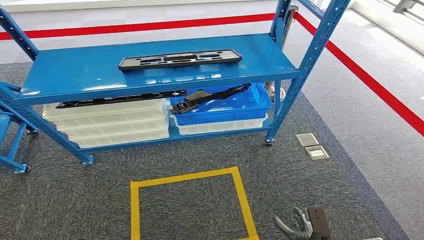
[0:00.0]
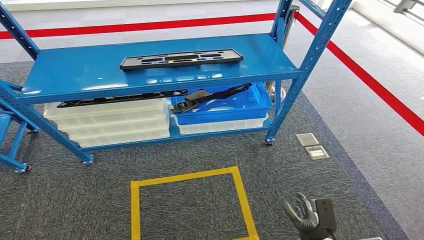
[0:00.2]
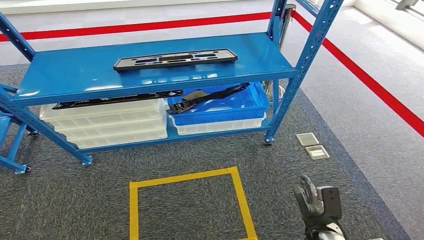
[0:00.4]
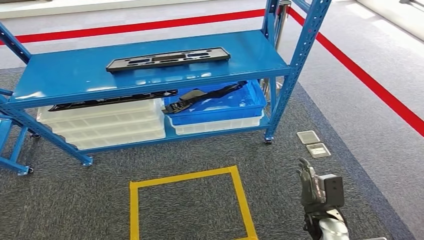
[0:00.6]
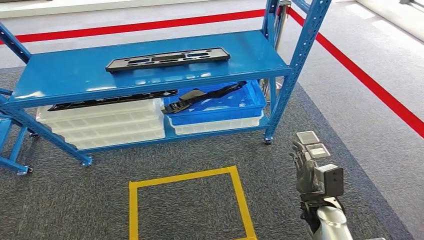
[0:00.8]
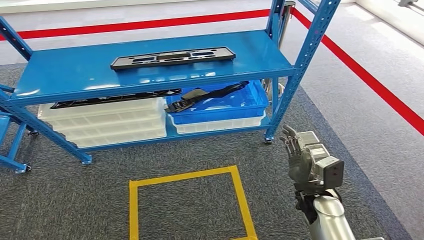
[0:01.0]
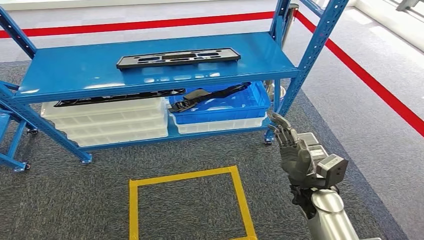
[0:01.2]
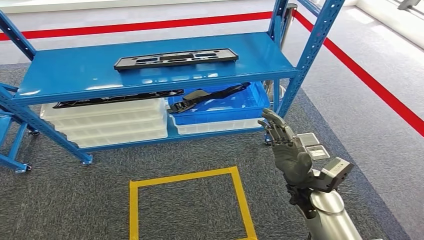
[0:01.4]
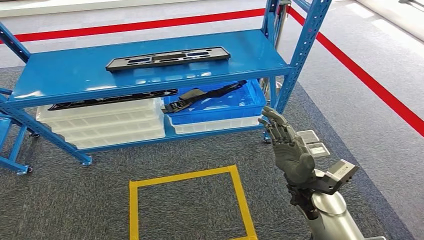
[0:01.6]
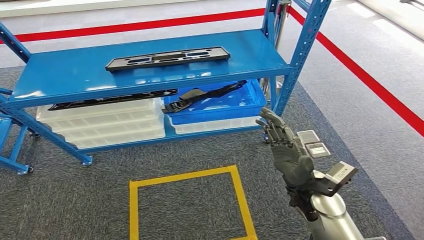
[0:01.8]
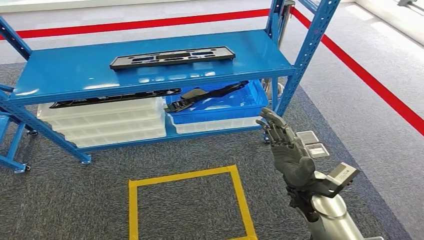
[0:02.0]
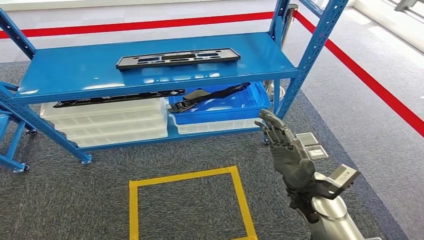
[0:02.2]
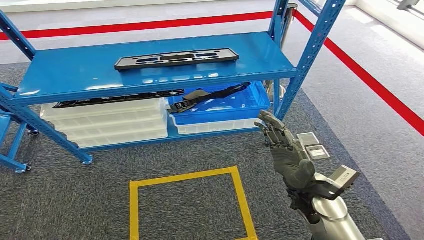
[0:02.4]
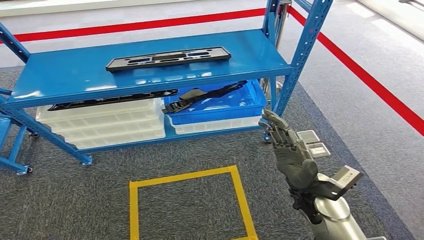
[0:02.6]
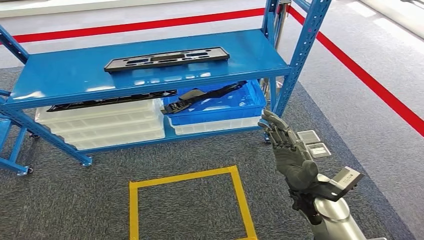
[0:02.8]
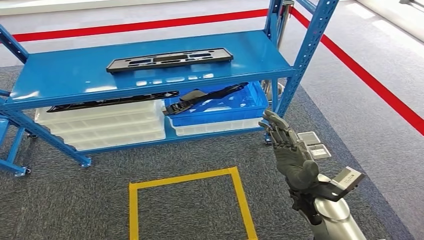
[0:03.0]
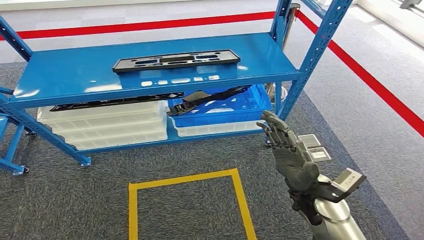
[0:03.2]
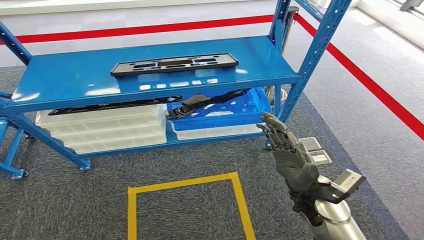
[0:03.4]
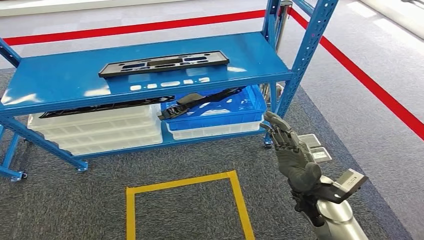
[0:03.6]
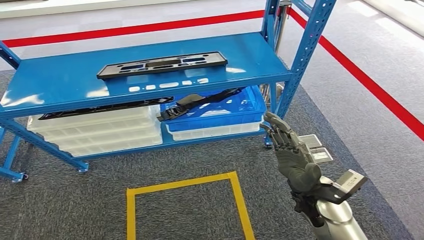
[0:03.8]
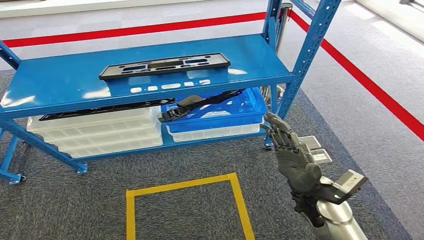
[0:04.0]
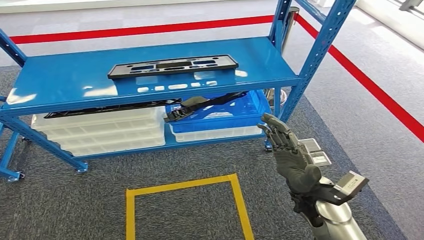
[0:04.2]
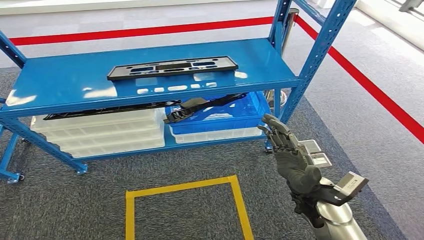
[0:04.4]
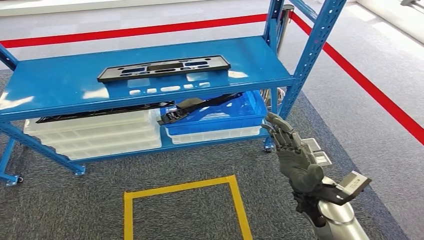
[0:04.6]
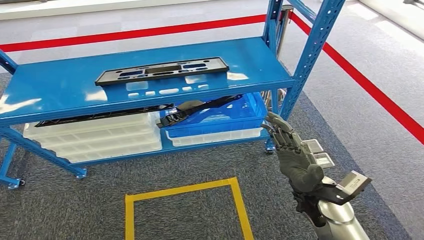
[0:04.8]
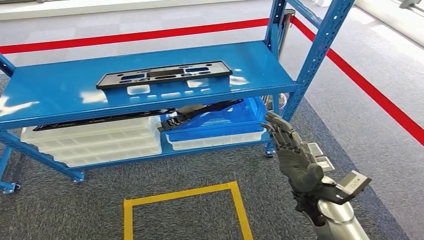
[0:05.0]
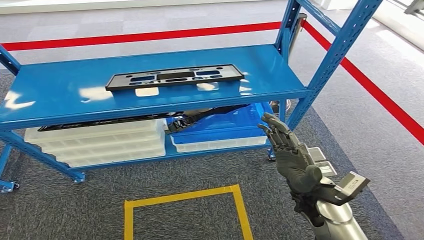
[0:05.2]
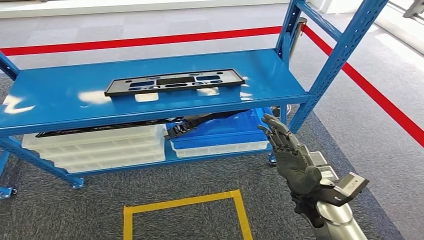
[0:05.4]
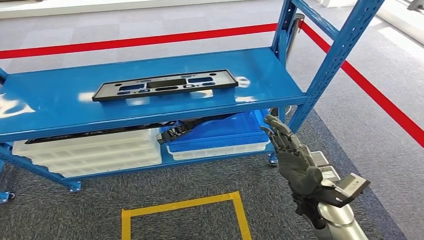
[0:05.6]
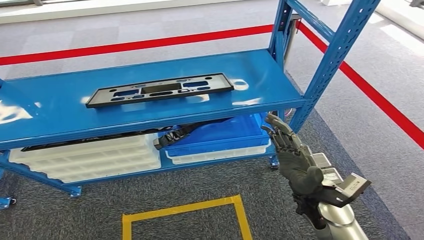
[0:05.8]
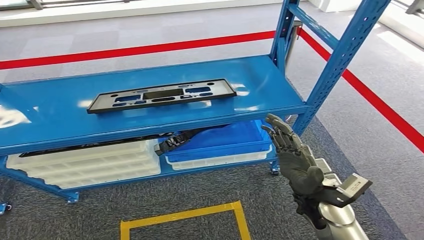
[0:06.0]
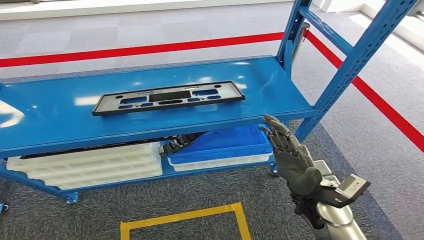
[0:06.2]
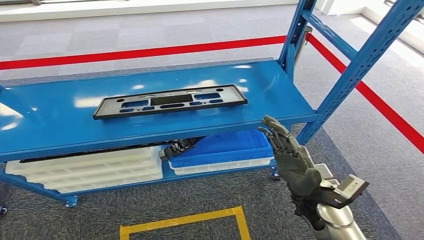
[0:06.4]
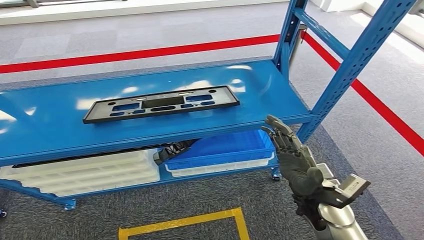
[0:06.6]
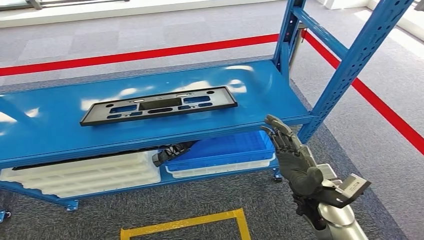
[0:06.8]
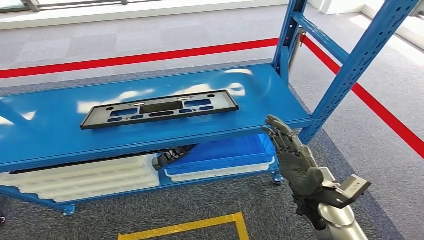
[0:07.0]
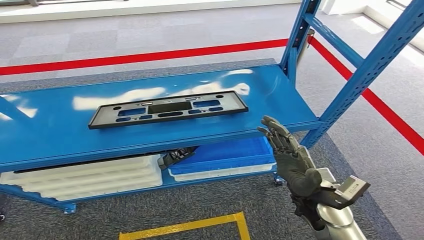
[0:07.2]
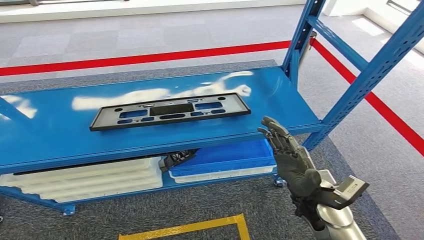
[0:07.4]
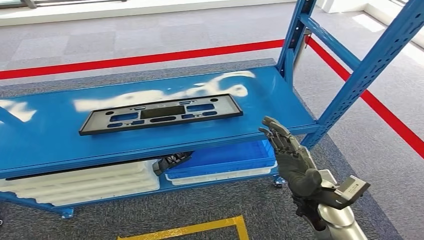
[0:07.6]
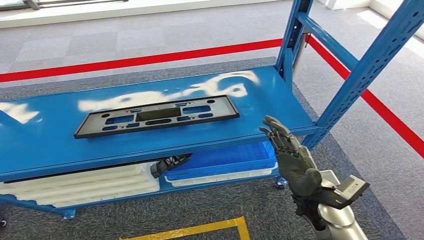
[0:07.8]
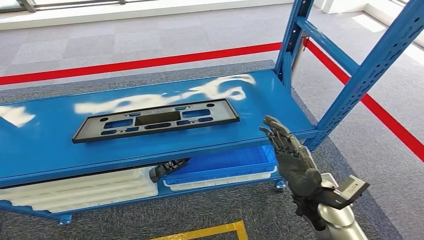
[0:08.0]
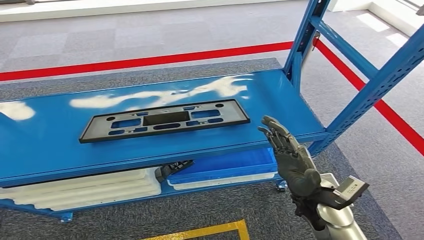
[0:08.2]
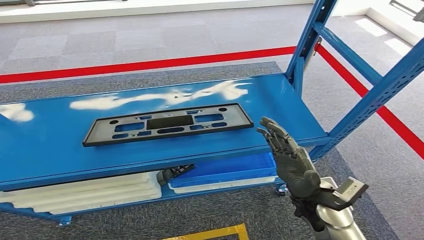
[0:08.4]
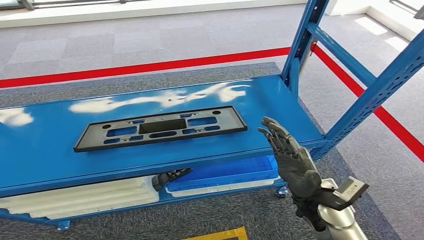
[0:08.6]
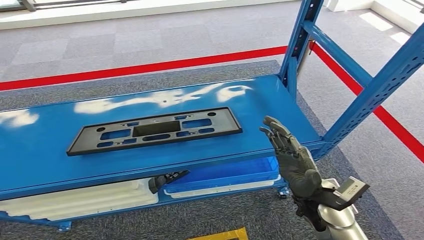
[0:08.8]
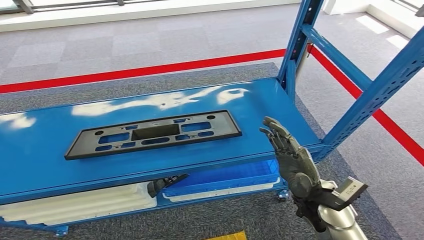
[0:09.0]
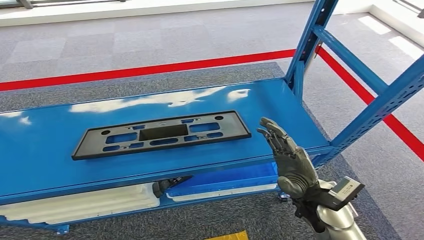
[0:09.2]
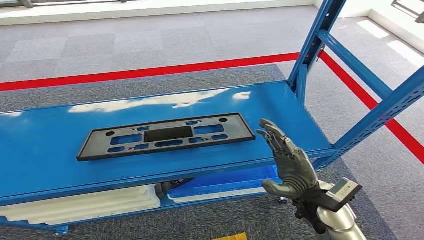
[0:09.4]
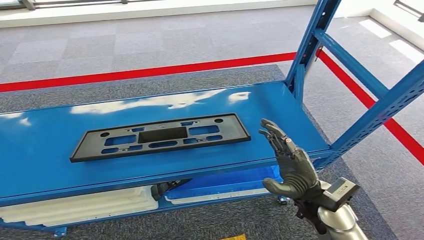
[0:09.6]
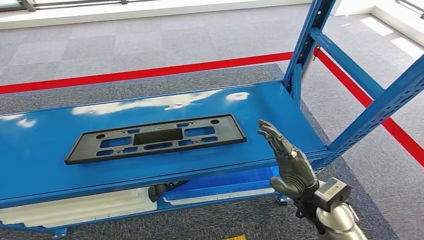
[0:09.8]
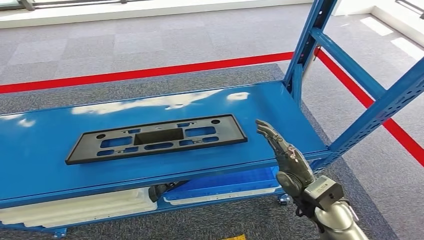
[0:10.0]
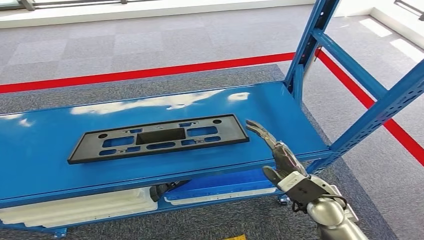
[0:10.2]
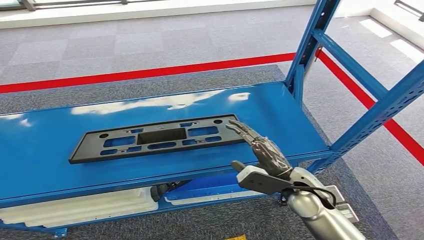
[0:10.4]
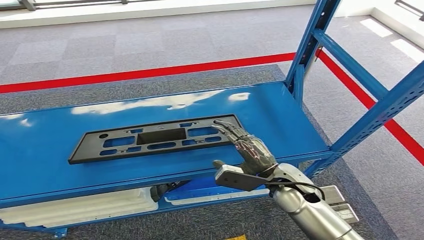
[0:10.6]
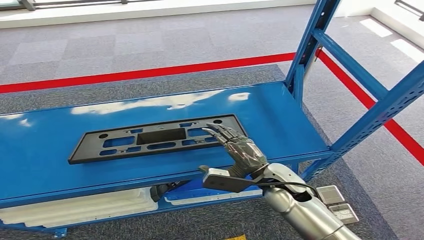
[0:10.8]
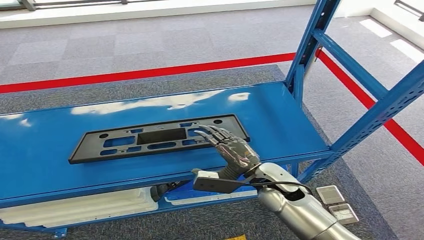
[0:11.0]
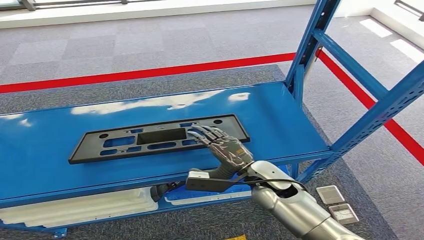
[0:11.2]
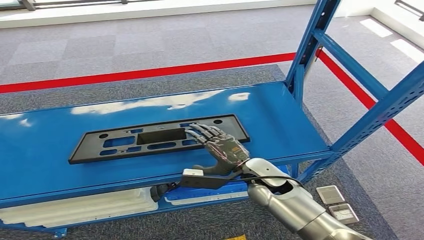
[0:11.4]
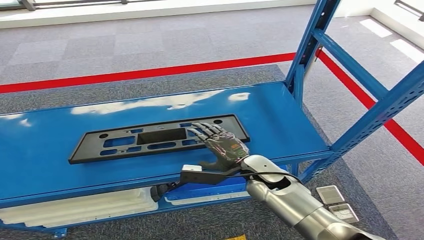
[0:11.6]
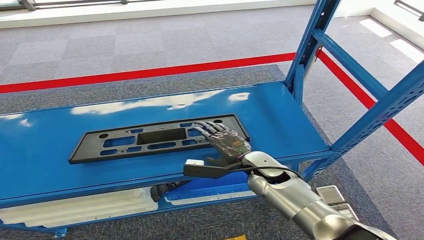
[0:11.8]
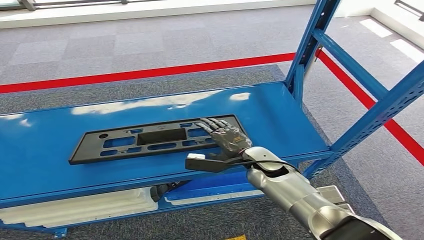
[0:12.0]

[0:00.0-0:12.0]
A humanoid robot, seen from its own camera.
0:01.6 to 0:03.0: Neither hand changes place.
0:10.4 to 0:12.0: The right hand travels forward and to the left by approximately 10 cm.

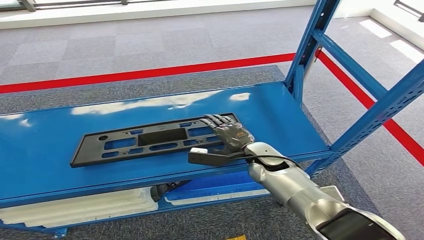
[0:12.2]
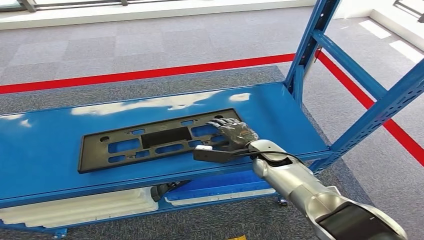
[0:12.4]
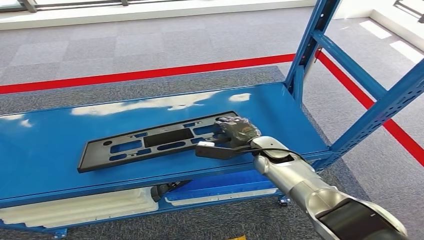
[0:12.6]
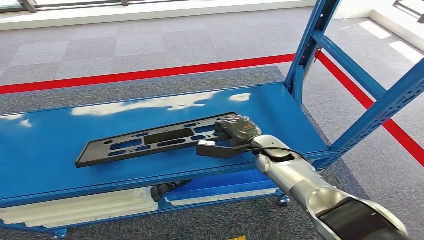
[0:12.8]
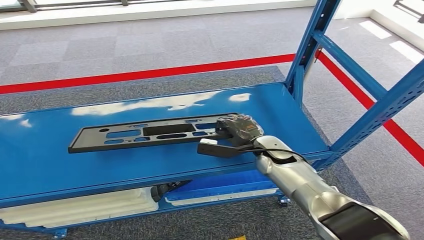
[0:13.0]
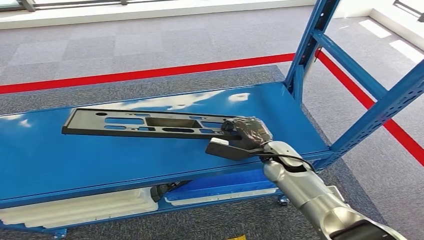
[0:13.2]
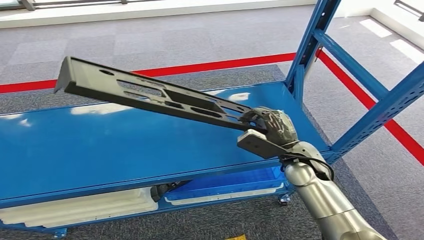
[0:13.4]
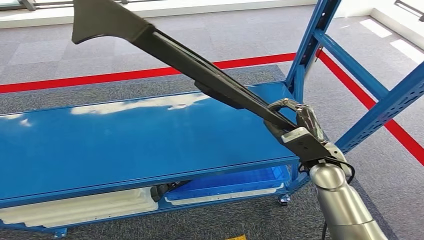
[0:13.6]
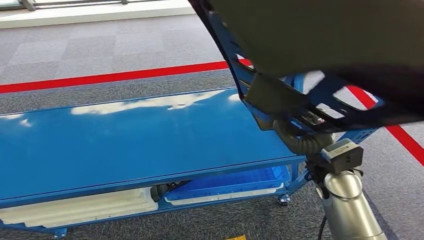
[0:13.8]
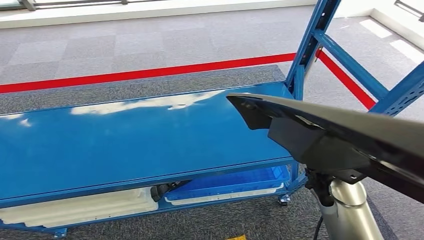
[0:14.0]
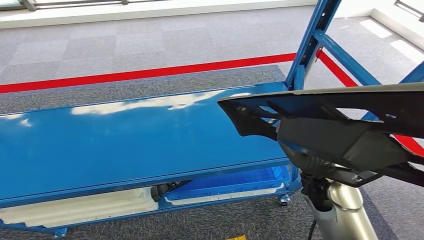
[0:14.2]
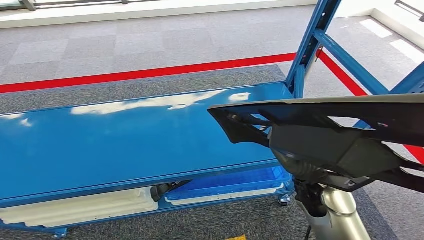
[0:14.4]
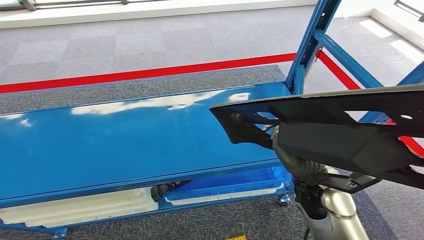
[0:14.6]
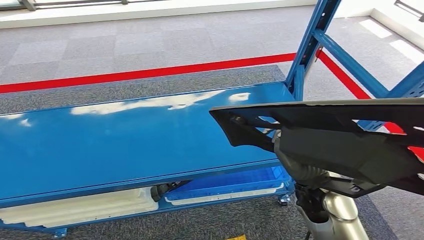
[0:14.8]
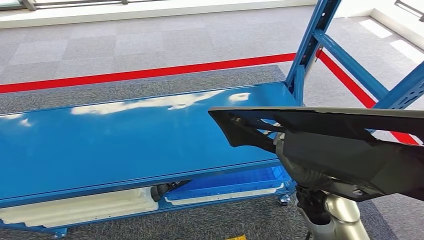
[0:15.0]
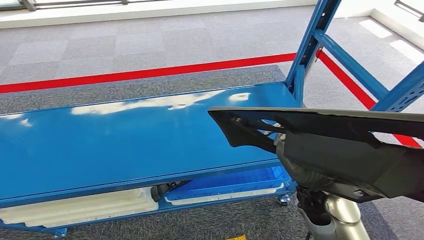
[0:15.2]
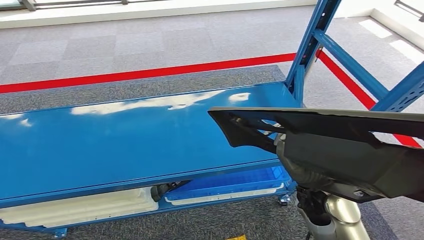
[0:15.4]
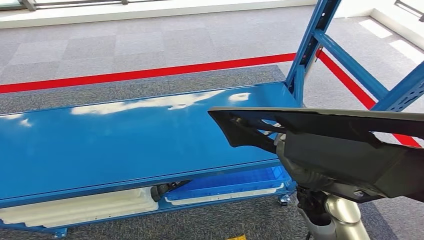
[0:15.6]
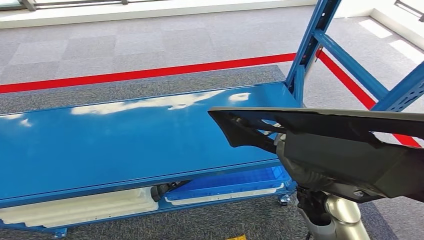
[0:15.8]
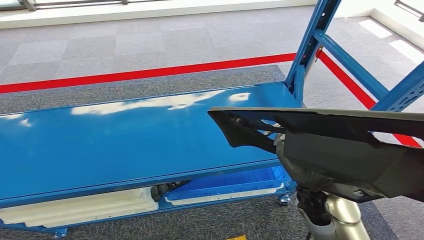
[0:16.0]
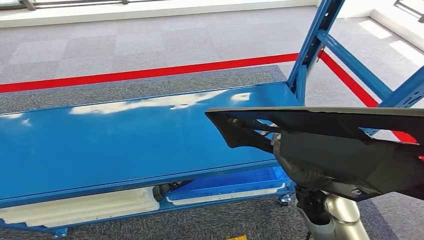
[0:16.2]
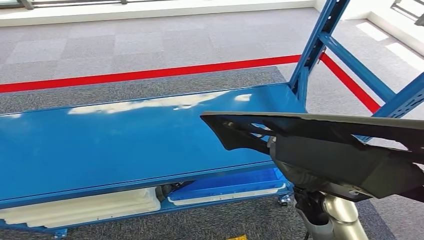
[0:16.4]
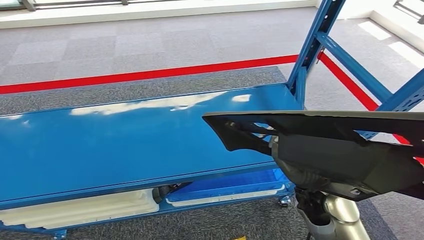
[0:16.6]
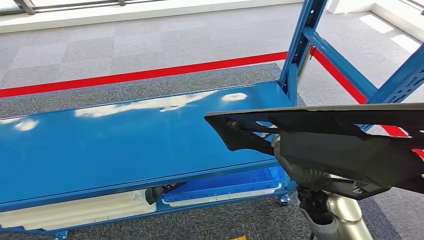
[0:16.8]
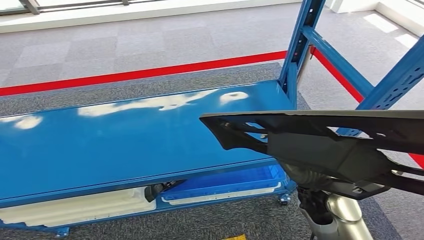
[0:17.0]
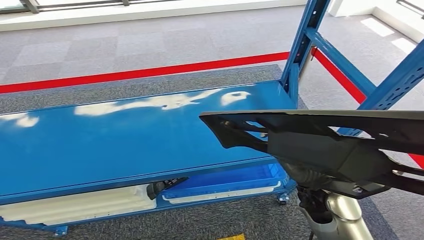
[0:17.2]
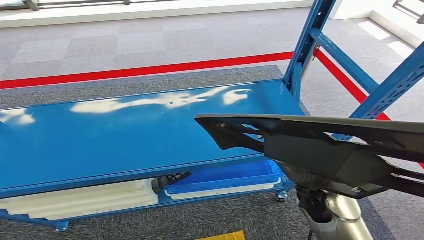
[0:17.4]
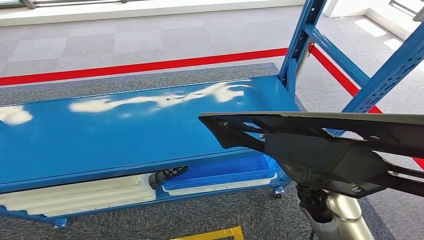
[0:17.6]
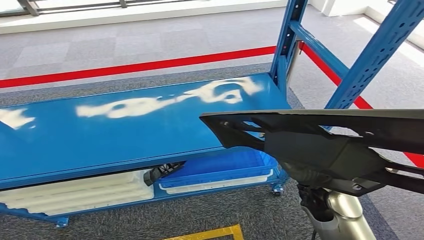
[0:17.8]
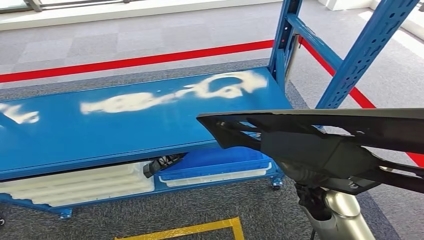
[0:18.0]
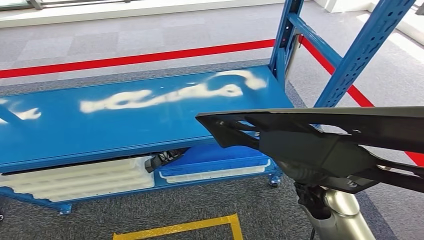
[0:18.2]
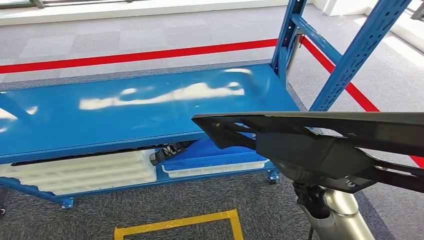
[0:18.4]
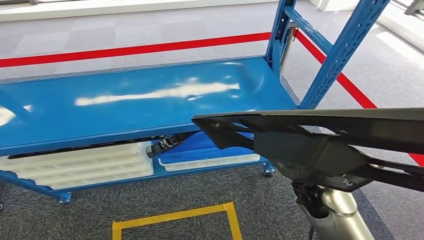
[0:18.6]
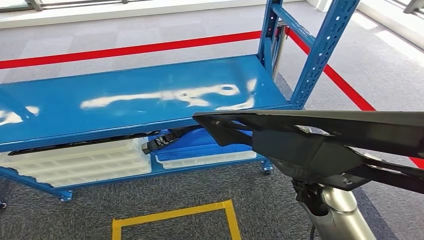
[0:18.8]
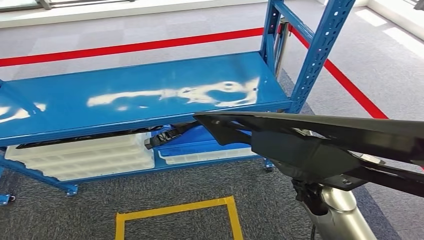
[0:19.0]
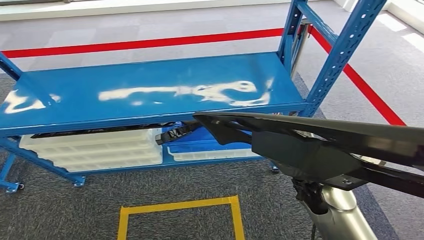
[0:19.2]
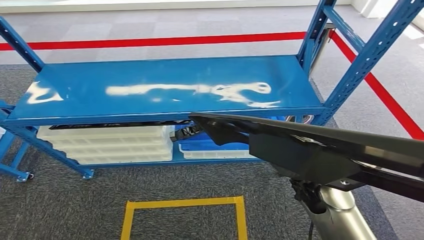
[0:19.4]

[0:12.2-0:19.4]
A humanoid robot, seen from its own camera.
0:15.0 to 0:16.6: The hands make only small movements.
